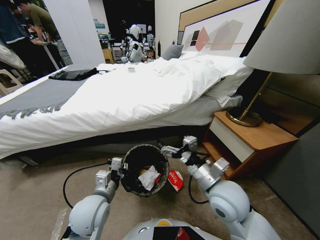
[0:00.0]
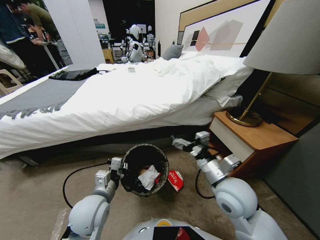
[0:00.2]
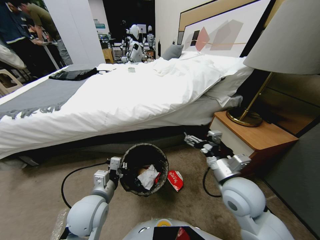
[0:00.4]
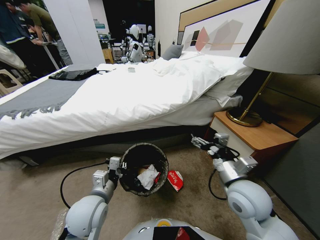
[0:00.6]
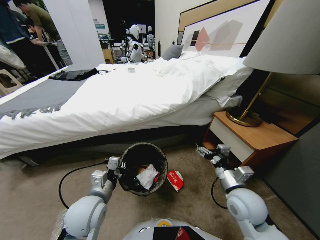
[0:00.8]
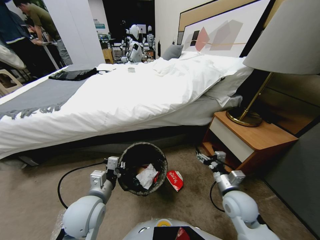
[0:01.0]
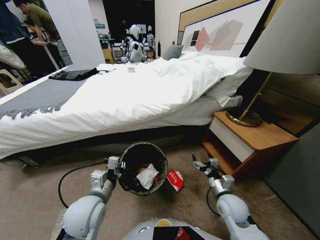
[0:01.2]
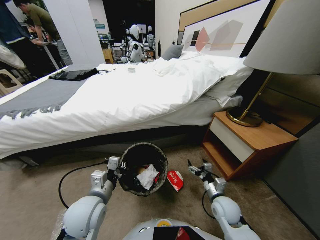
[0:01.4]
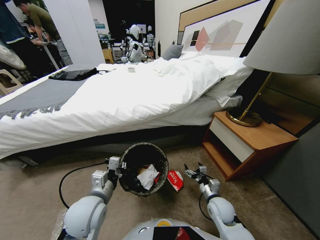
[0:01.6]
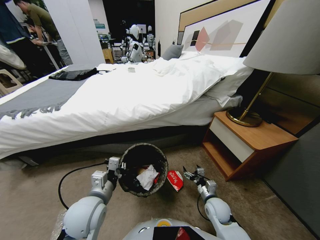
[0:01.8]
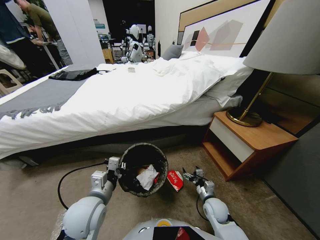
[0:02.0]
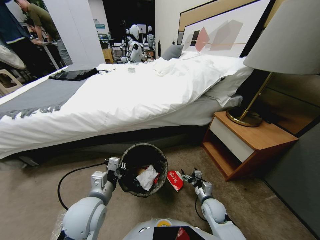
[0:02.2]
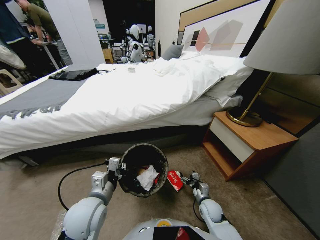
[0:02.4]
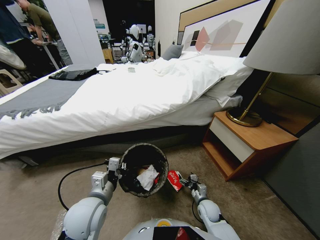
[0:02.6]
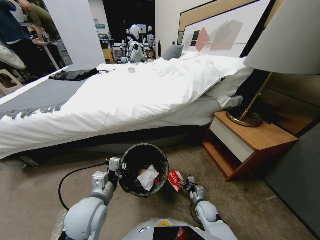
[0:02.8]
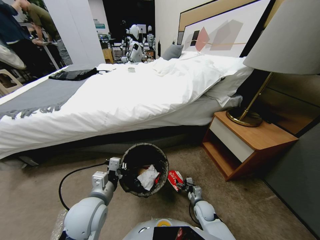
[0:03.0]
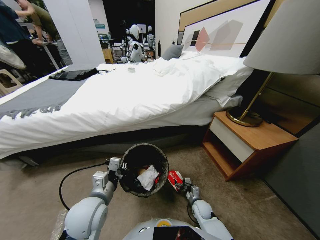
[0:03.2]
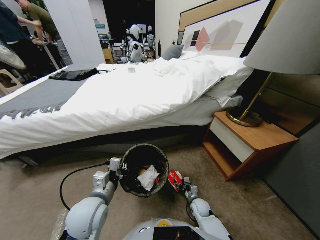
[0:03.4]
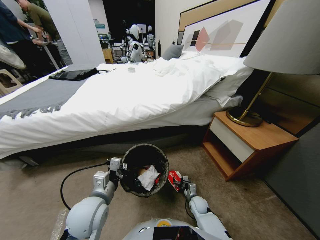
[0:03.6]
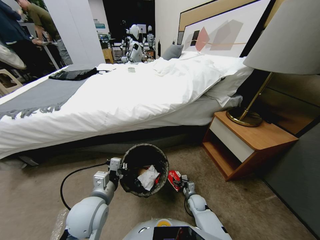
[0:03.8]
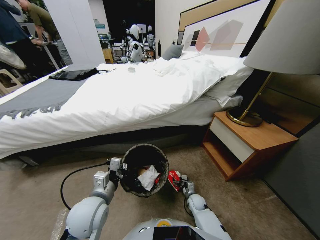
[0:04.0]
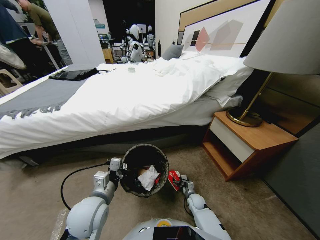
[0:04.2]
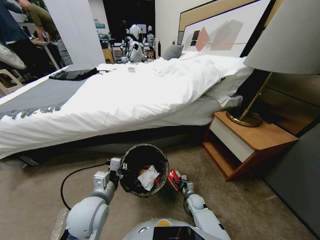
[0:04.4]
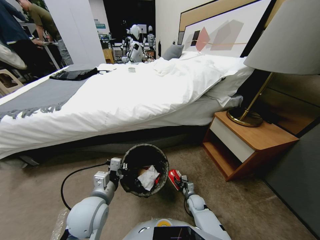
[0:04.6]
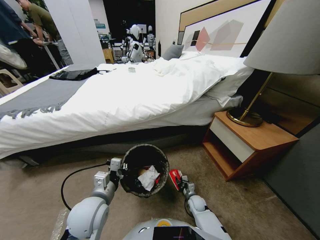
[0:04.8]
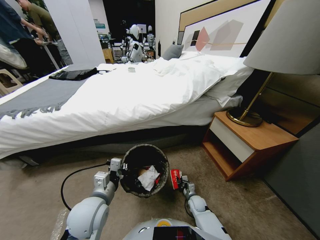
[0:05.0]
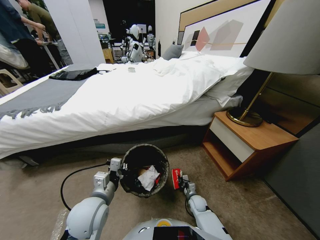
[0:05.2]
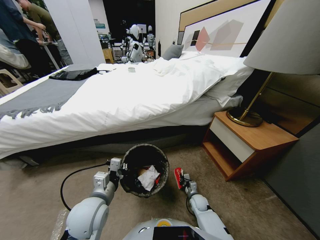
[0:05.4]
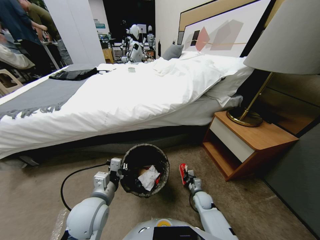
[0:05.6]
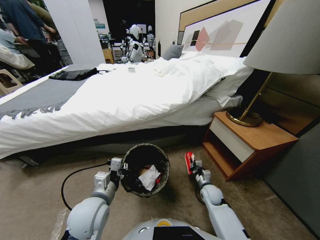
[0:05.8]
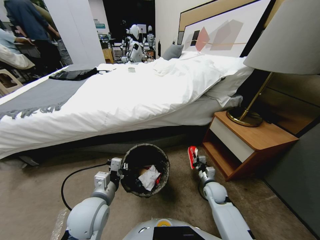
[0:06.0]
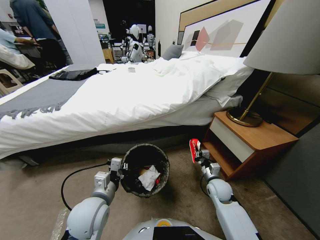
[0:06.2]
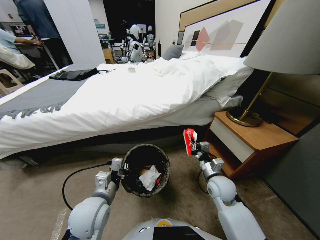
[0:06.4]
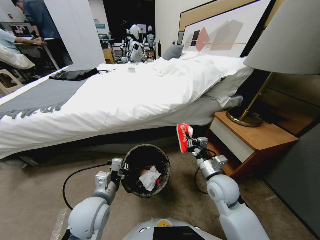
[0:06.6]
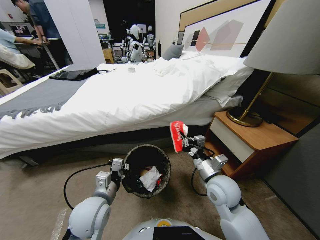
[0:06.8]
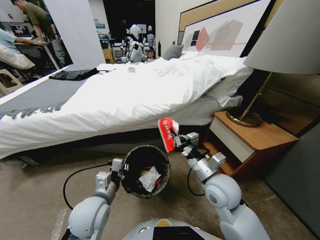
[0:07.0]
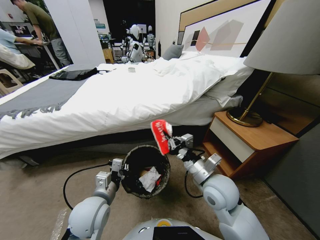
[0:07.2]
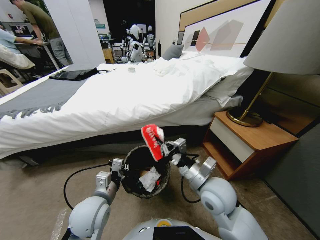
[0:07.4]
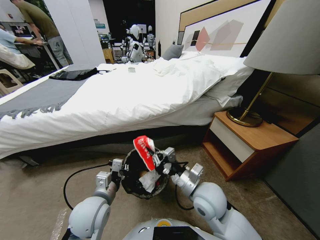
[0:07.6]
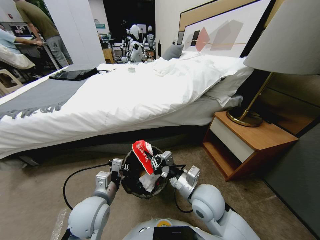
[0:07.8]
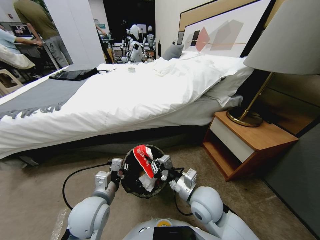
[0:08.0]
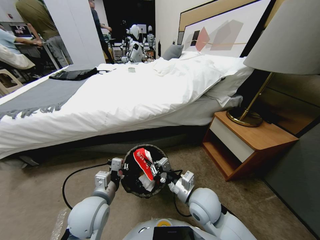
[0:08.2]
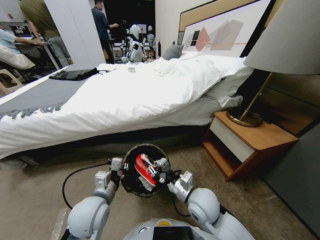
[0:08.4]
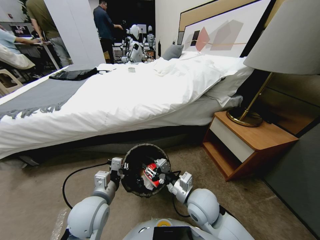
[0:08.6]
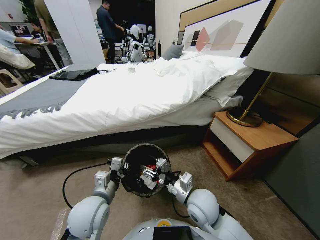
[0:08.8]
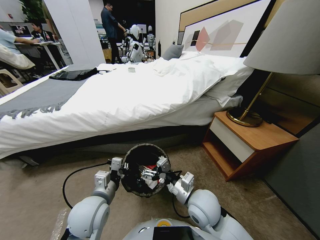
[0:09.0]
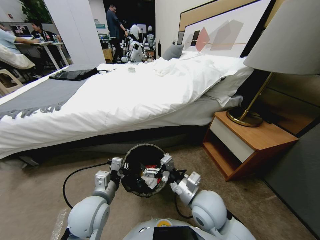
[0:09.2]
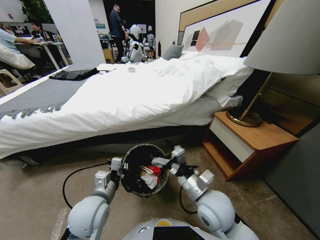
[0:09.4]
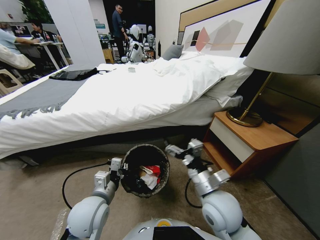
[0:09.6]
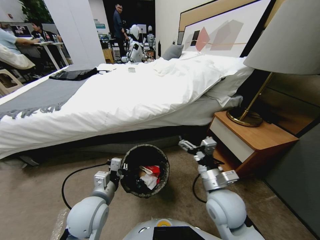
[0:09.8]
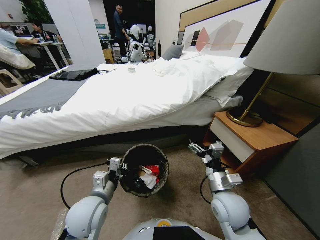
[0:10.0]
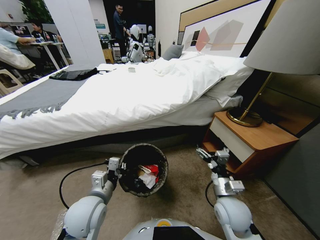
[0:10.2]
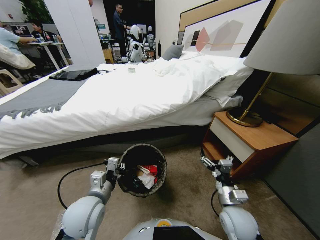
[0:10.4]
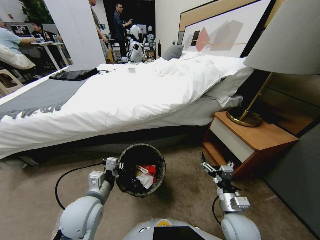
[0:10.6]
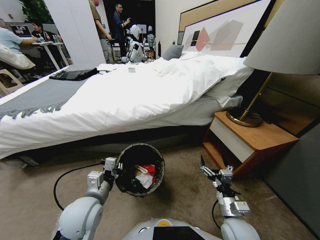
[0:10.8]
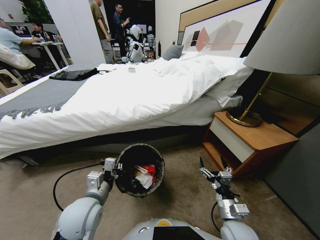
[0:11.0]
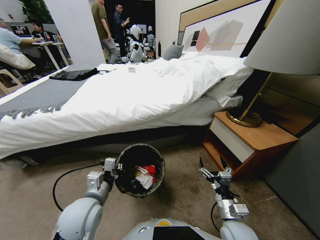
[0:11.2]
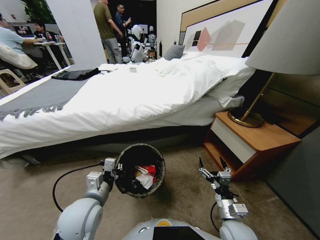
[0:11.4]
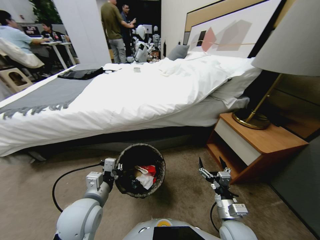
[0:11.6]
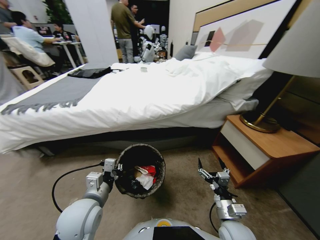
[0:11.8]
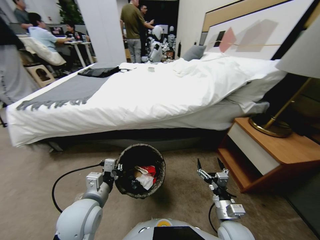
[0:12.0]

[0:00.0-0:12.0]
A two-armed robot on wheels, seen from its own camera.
Task of the whole recording: Pick up the trash bin, then pick up the garbage from the floor and place it into the trash bin.
0:00.0 to 0:01.6: The right gripper goes approximately 25 cm downward.
0:01.6 to 0:03.0: The right gripper is displaced downward by some 10 cm.
0:03.0 to 0:04.4: The right gripper shifts by about 5 cm.
0:04.4 to 0:06.0: The right gripper goes about 20 cm upward, and closes.
0:06.0 to 0:07.6: The right gripper travels upward, to the left and backward by some 20 cm.
0:07.6 to 0:09.0: The right gripper opens up.
0:09.0 to 0:10.4: The right gripper travels to the right and downward by approximately 15 cm.

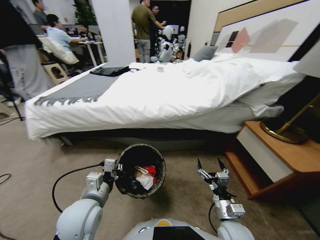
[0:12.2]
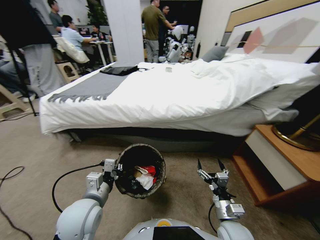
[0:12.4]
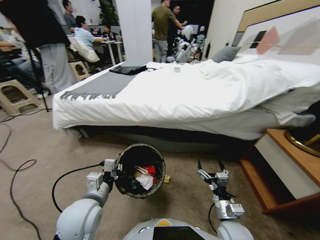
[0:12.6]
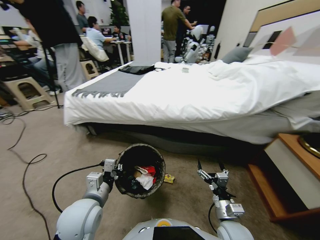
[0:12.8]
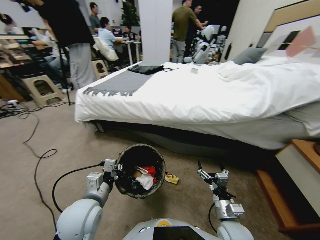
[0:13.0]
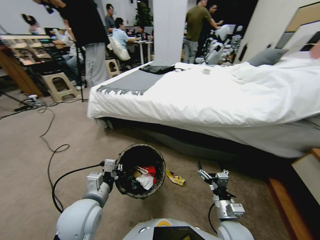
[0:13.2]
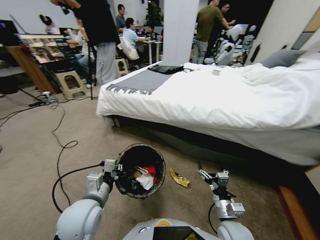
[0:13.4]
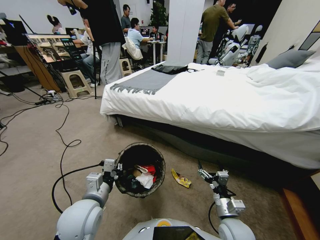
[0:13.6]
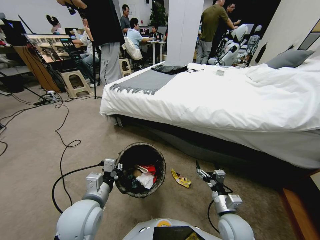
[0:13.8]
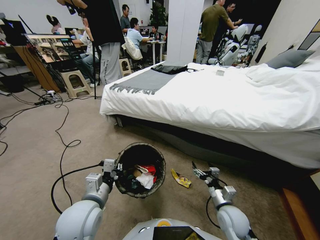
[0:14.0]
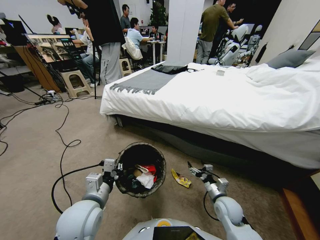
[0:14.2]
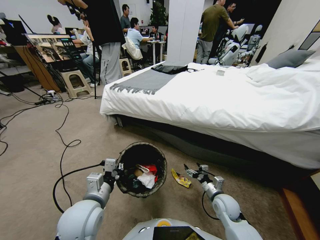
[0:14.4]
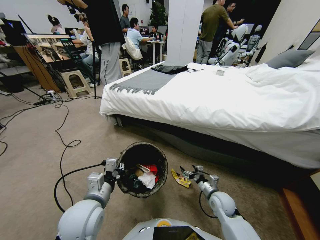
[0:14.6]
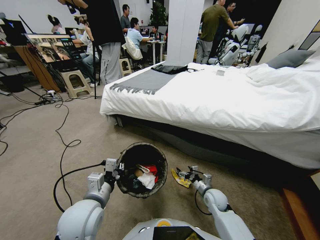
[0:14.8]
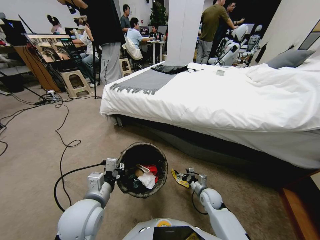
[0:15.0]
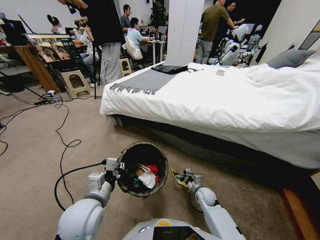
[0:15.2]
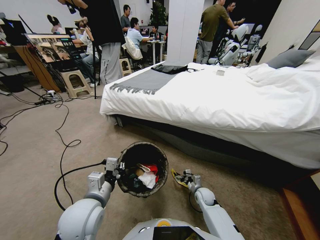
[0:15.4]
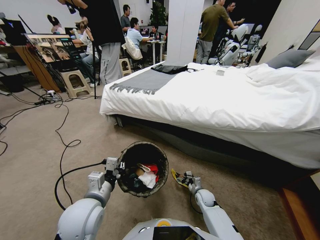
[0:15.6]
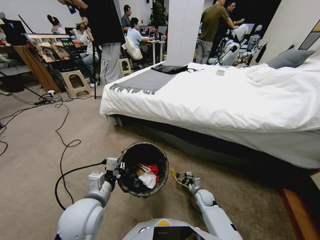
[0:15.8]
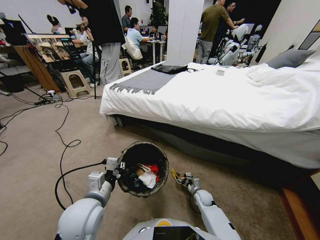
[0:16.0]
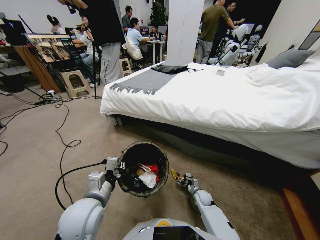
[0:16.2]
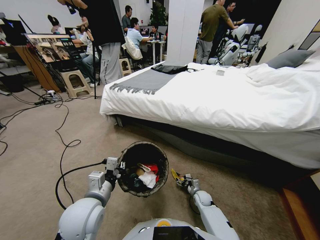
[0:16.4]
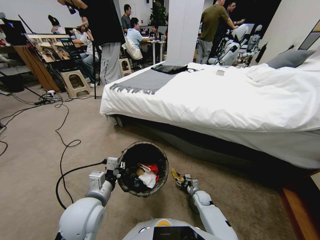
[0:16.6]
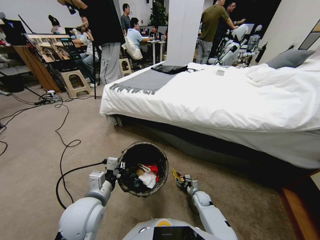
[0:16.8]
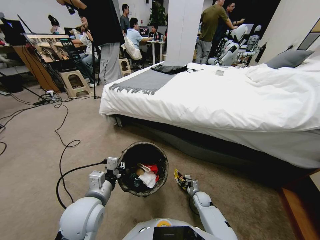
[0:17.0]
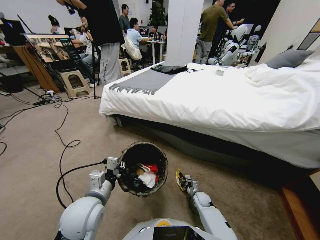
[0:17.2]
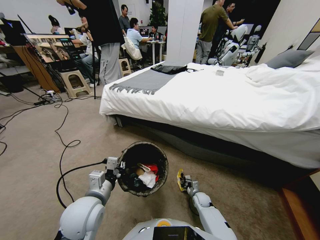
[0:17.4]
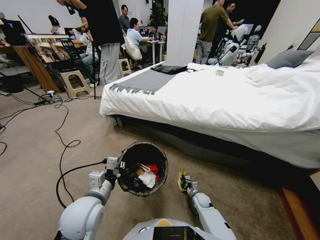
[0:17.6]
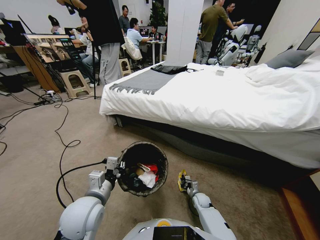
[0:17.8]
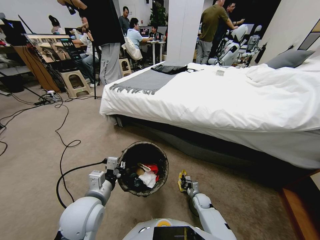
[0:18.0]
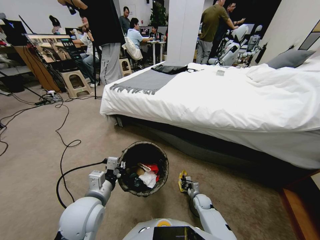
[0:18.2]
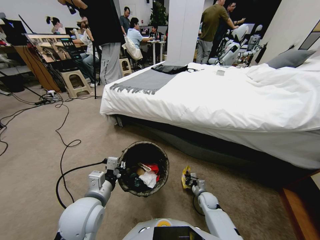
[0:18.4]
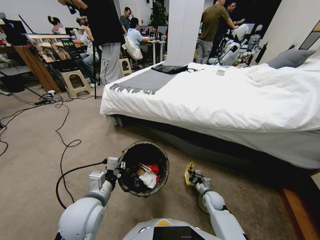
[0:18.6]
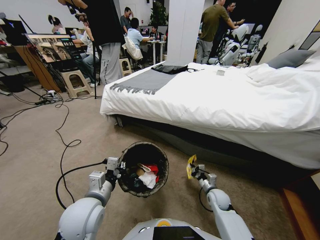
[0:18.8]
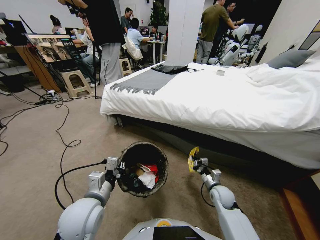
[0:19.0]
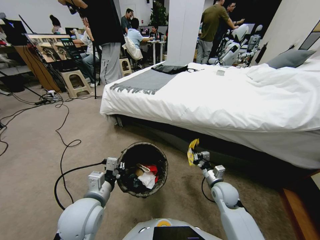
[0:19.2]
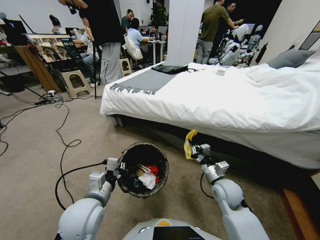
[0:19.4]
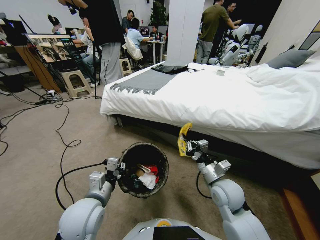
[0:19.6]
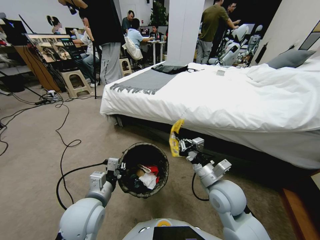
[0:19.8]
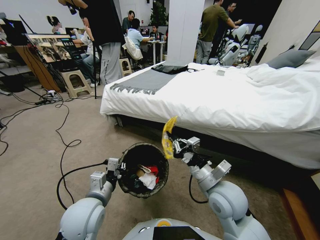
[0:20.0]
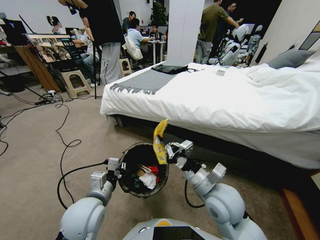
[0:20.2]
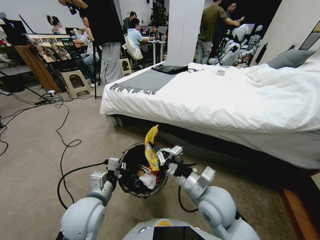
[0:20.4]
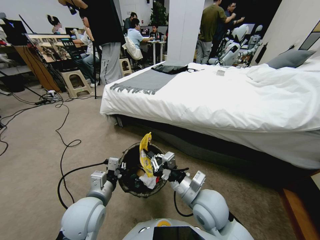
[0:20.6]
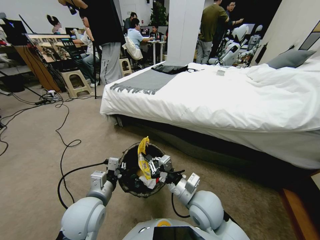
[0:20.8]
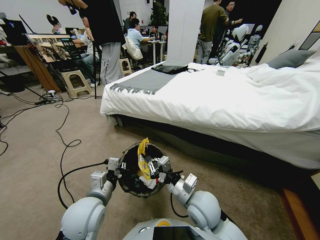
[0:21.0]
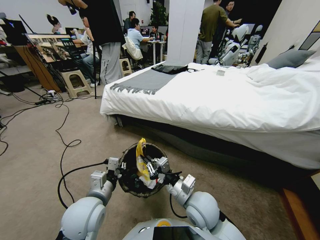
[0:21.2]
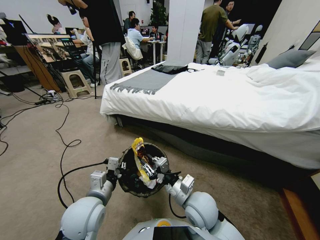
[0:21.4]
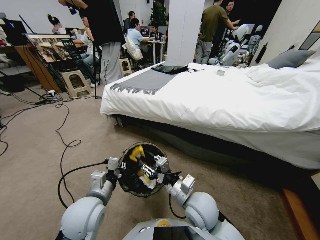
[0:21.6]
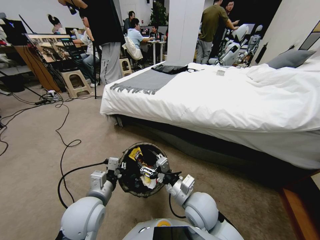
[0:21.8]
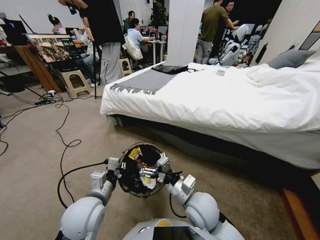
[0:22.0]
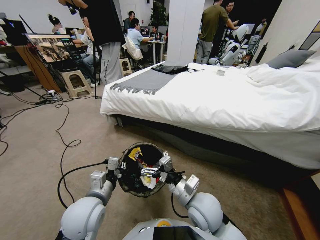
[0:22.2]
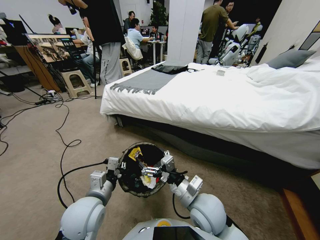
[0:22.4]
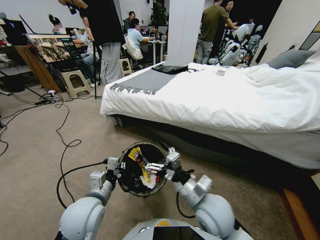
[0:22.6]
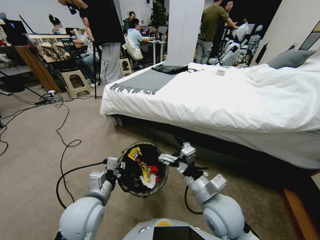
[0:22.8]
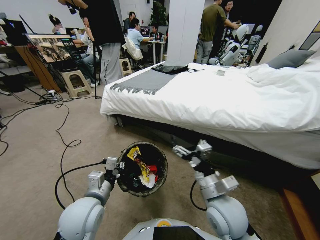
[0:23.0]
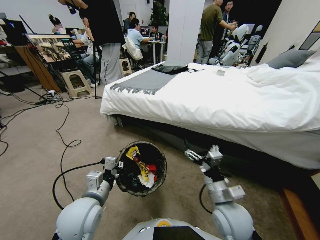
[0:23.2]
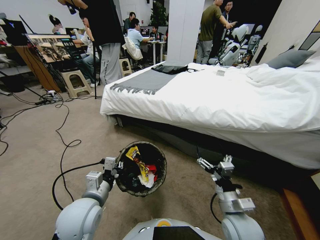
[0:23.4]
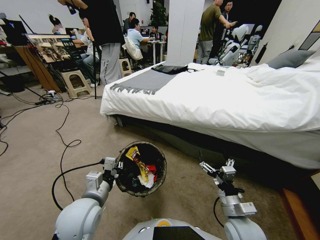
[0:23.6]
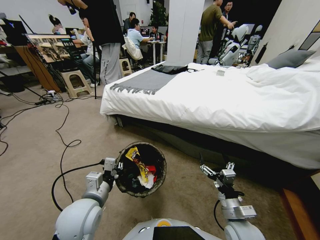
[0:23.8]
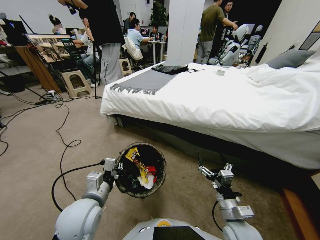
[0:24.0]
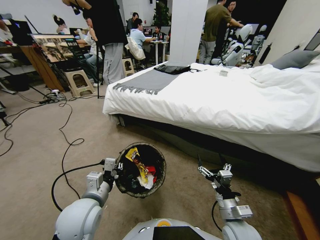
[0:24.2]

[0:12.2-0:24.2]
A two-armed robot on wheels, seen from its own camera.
Task of the whole recording: Pick up the trash bin, then pick up the garbage from the floor and place it into the trash bin.
0:13.8 to 0:15.2: The right gripper travels downward and forward by about 20 cm.
0:15.2 to 0:16.6: The right gripper heads downward, covering approximately 5 cm.
0:16.6 to 0:18.2: The right gripper closes up.
0:18.2 to 0:19.8: The right gripper is displaced upward by about 35 cm.
0:19.8 to 0:21.2: The right gripper heads to the left, covering some 5 cm.
0:21.2 to 0:22.6: The right gripper shifts by approximately 5 cm, and opens up.
0:22.6 to 0:24.2: The right gripper moves downward and to the right, approximately 15 cm.
